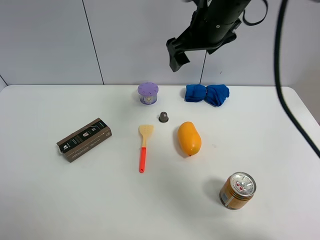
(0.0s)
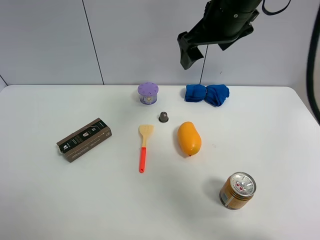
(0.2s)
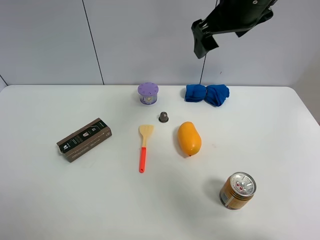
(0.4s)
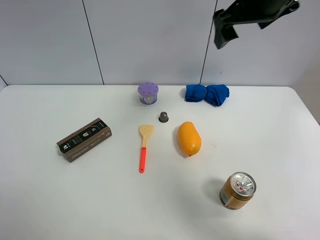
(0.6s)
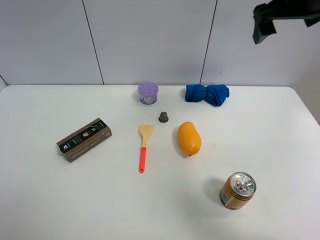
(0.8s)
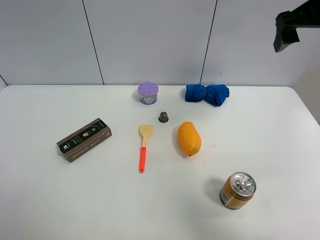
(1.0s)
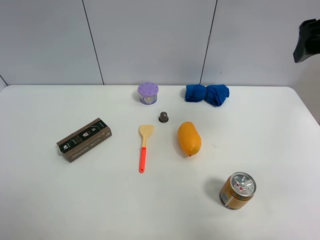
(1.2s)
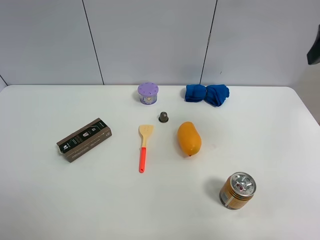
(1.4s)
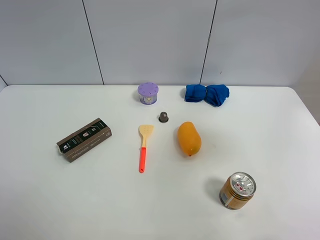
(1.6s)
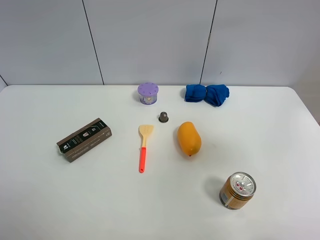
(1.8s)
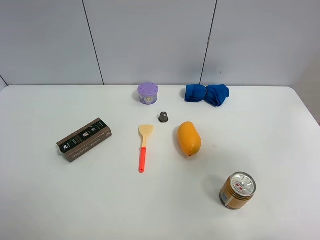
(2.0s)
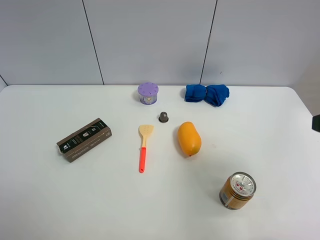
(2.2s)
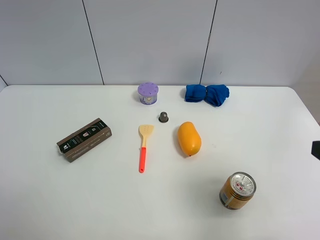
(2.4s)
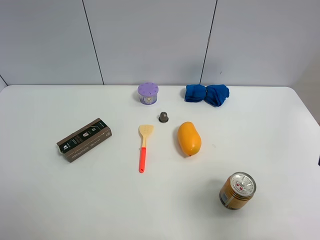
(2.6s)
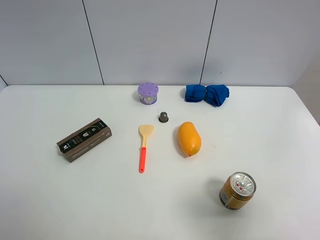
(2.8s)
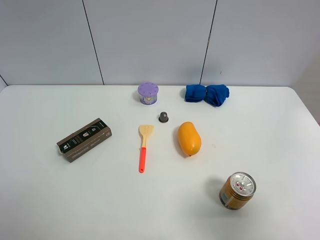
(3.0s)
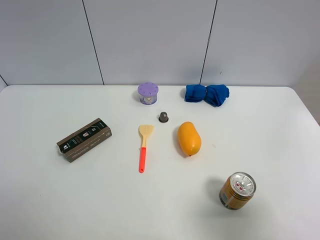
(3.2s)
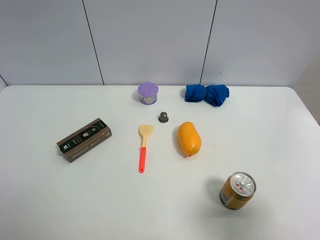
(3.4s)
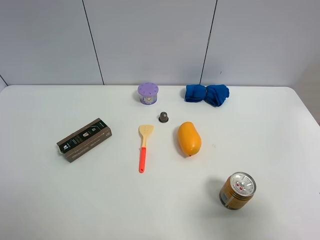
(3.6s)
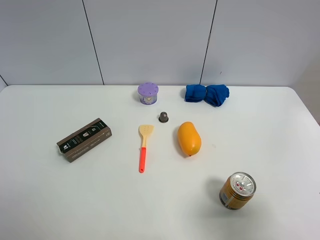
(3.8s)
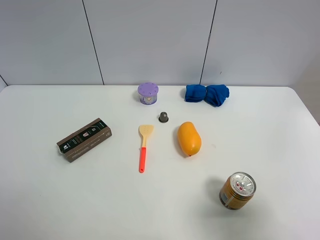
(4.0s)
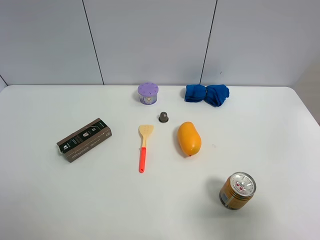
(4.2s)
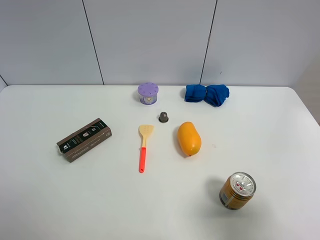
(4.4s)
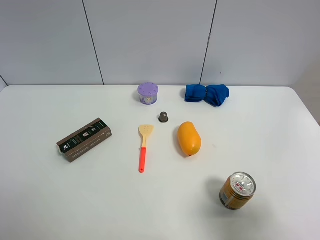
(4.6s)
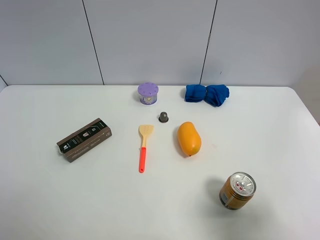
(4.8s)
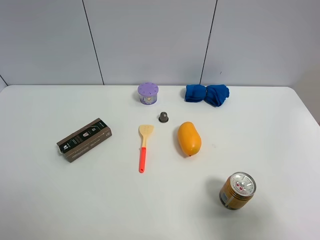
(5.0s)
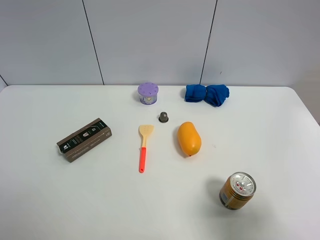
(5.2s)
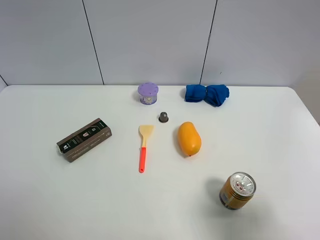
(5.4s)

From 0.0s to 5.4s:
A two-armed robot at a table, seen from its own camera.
Task of the whole recording: the gripper move the object.
From 0.0s to 1.4s: The right gripper shifts some 25 cm to the right and backward.
From 1.4s to 2.8s: The right gripper heads backward and downward, covering some 25 cm.

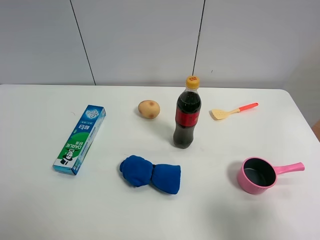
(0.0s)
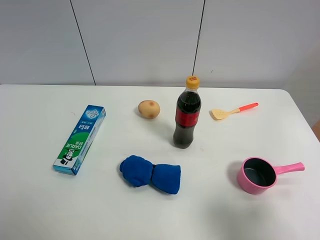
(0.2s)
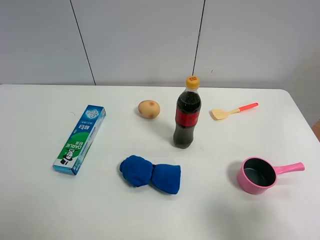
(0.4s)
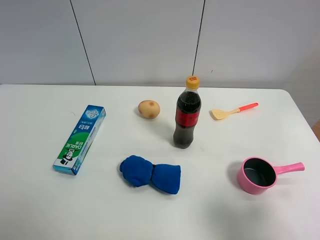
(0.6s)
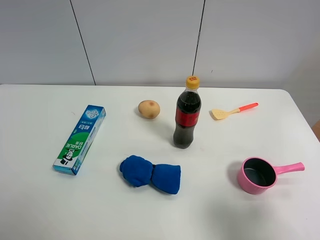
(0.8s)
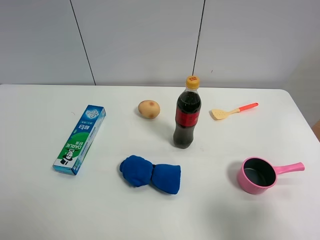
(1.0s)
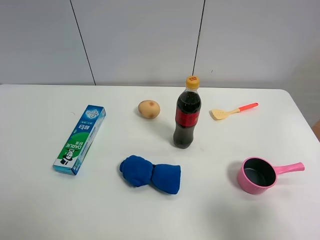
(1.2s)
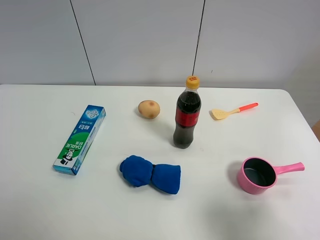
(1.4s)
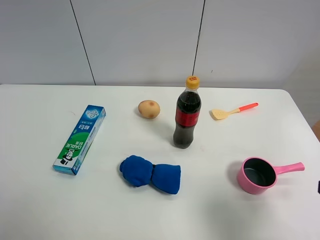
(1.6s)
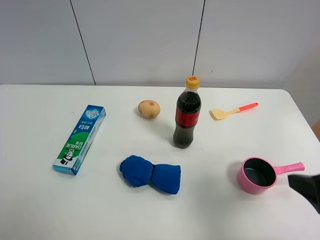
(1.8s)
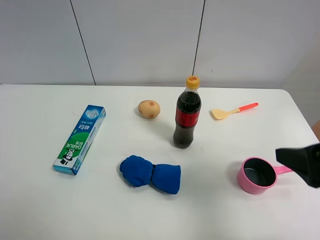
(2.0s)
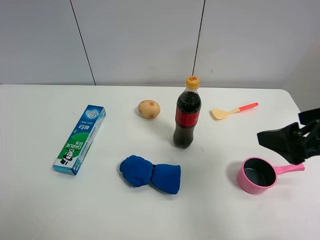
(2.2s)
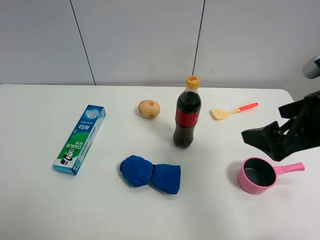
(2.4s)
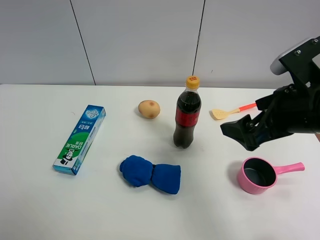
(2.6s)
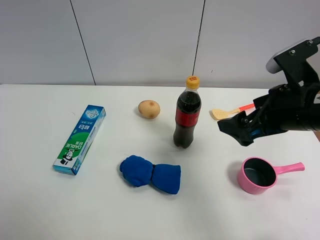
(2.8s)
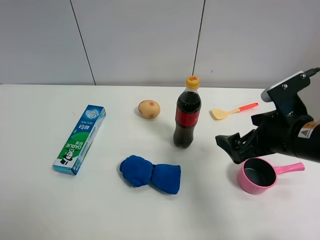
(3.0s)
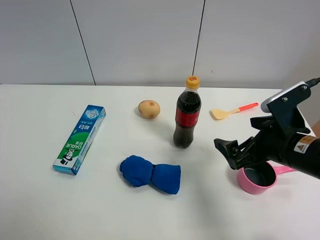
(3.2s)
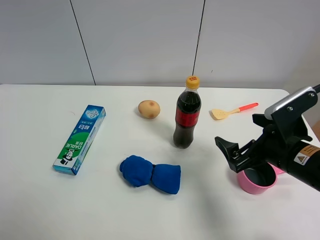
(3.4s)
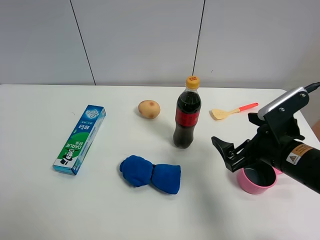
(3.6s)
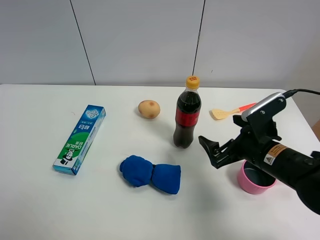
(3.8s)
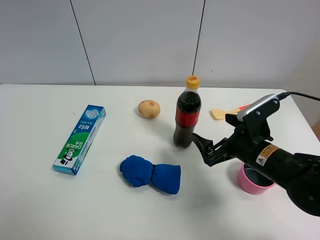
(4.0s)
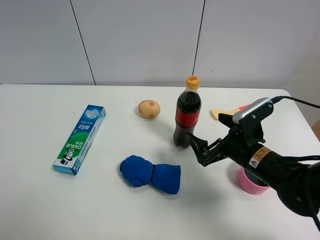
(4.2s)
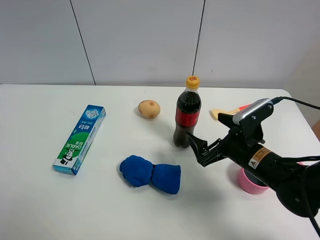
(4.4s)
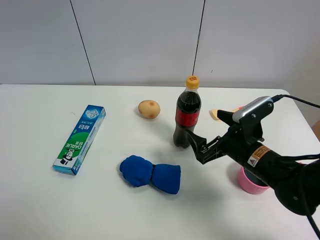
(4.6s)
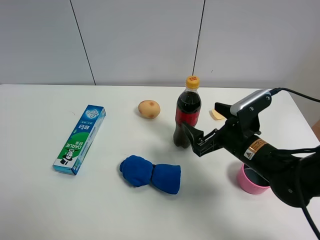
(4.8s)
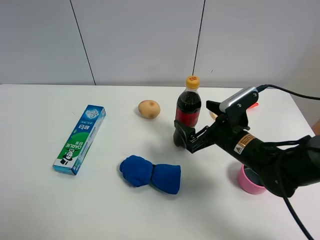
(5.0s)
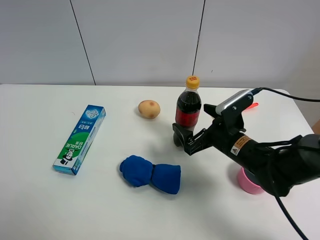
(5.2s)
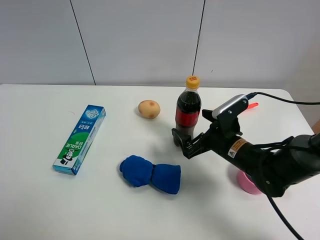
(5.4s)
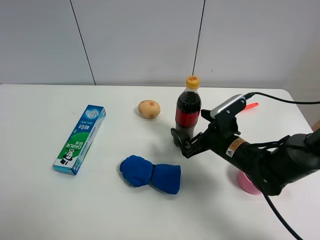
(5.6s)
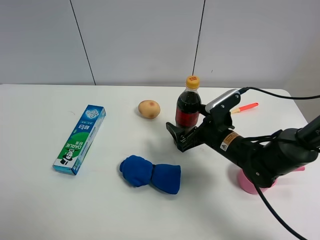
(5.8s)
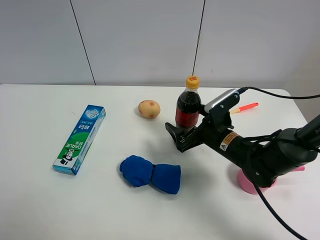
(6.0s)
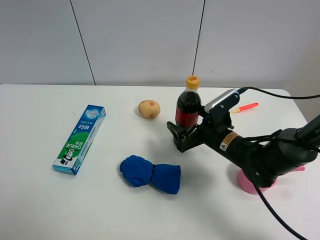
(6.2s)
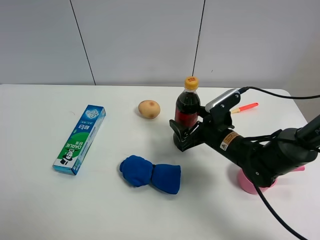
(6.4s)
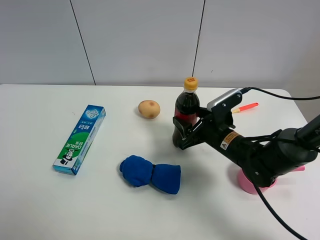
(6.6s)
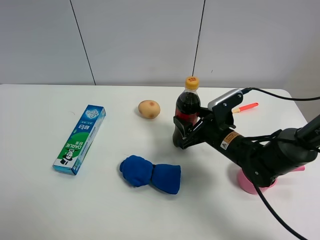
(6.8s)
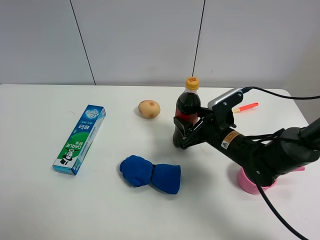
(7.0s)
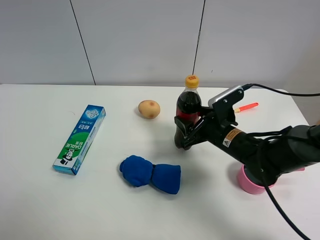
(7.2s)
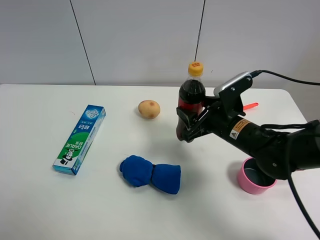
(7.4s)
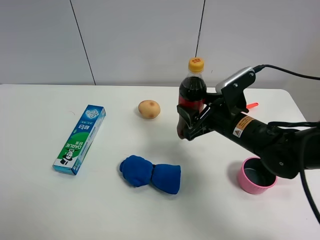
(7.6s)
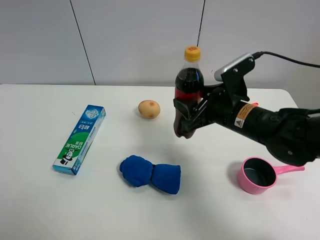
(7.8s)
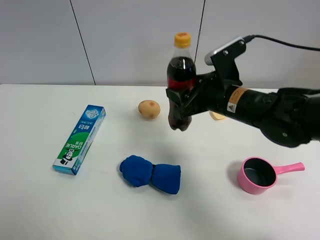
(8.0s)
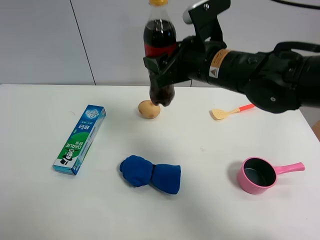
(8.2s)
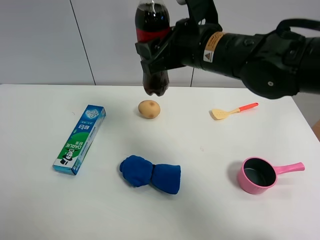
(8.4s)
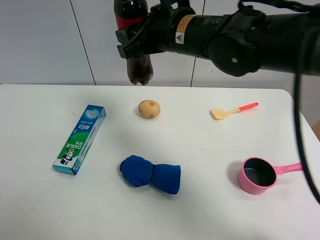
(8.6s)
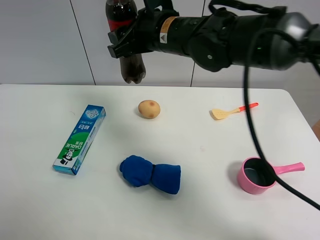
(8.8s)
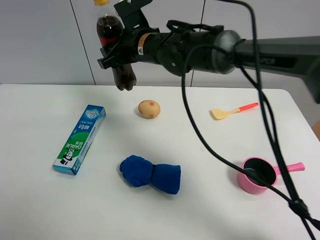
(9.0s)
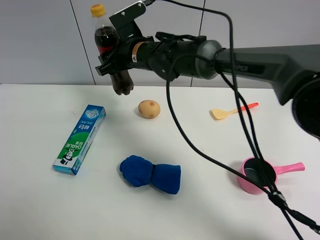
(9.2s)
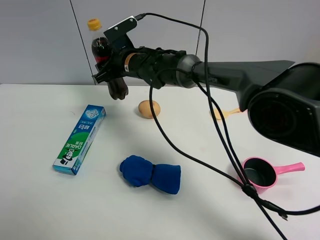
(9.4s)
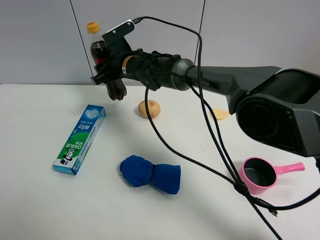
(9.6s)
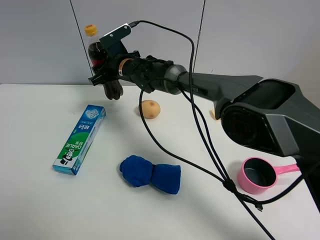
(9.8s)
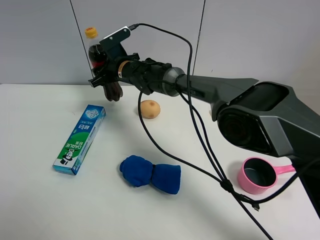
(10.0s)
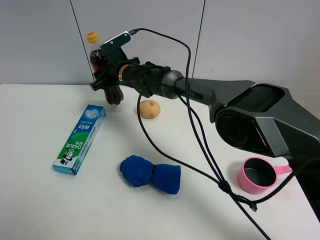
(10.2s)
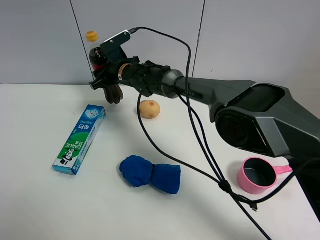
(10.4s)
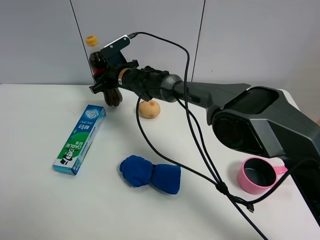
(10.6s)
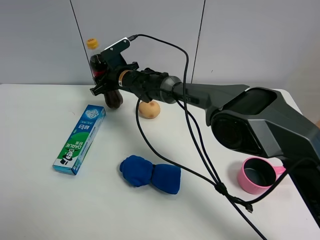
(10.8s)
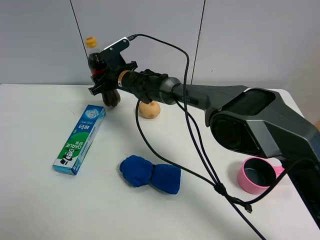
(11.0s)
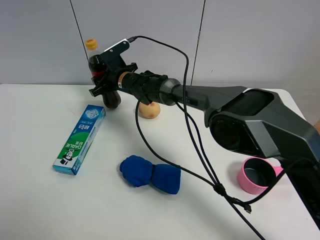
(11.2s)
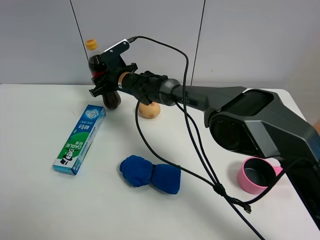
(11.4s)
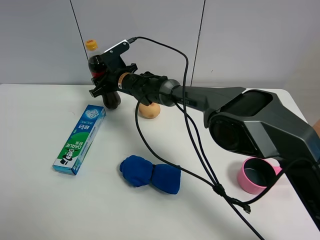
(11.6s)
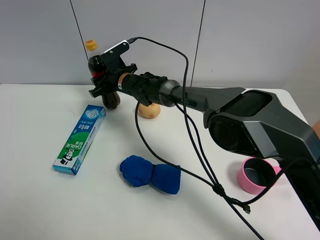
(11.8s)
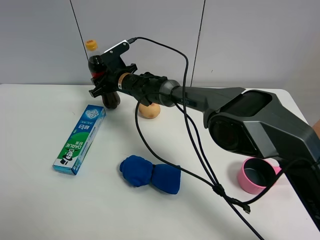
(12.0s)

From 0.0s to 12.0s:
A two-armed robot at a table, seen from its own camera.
Task of the whole recording: the gripper move the object.
Step, from 0.0s to 6.6s: Grasp the coke with the right gripper.
From 1.6s to 3.0s: The right gripper goes some 15 cm forward and to the left.
From 3.0s to 4.4s: The right gripper moves downward, about 10 cm.
From 4.4s to 6.0s: The right gripper travels forward by approximately 5 cm.
From 6.0s to 7.6s: The right gripper heads upward, covering about 5 cm, and closes its fingers.
From 7.6s to 9.0s: The right gripper heads to the left, forward and upward, covering roughly 25 cm.
From 9.0s to 10.4s: The right gripper shifts some 15 cm downward, forward and to the left.
From 10.4s to 12.0s: The grippers move only a little.

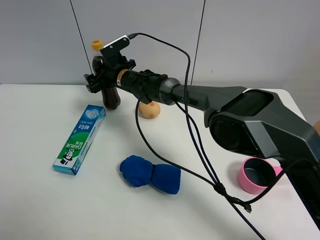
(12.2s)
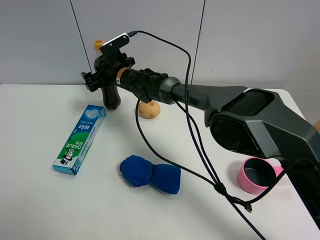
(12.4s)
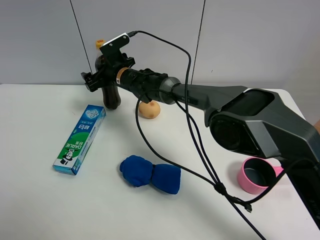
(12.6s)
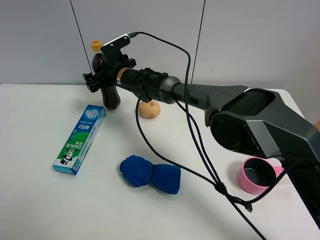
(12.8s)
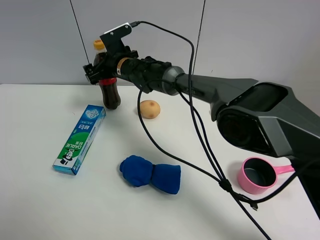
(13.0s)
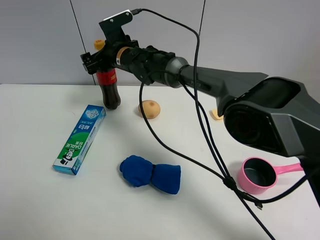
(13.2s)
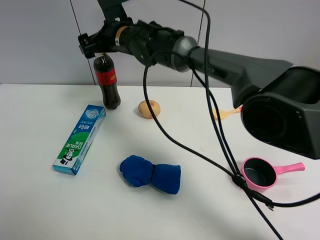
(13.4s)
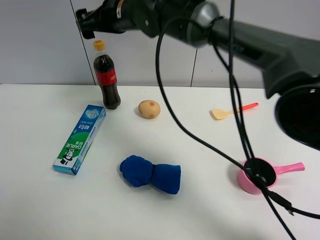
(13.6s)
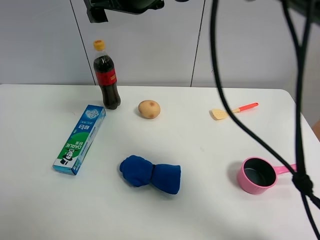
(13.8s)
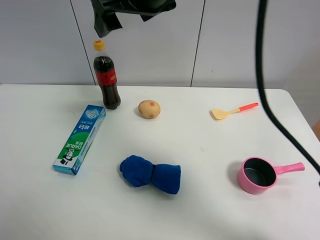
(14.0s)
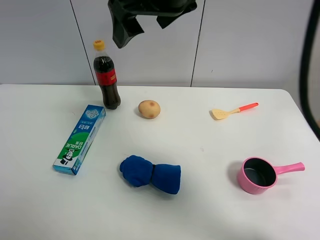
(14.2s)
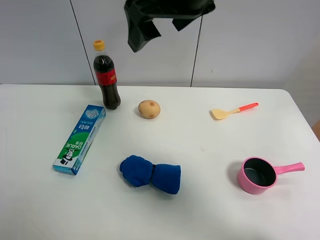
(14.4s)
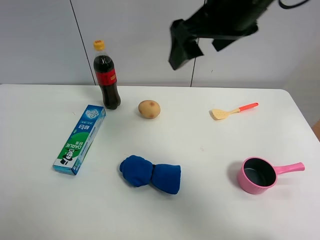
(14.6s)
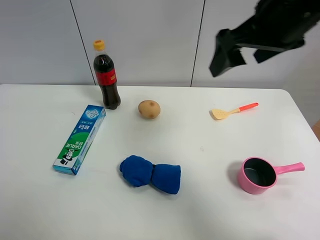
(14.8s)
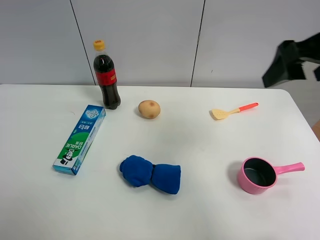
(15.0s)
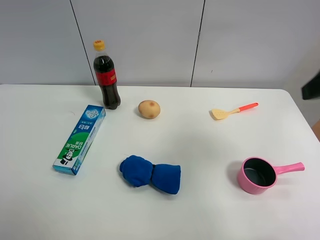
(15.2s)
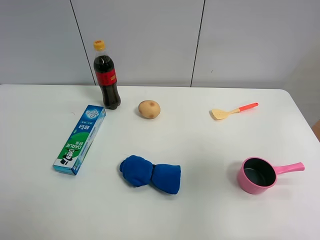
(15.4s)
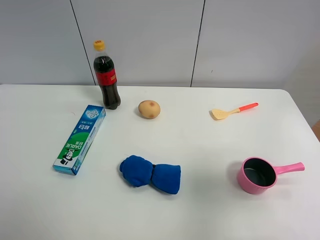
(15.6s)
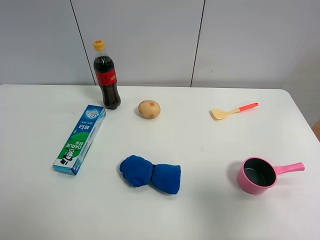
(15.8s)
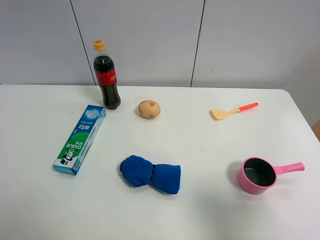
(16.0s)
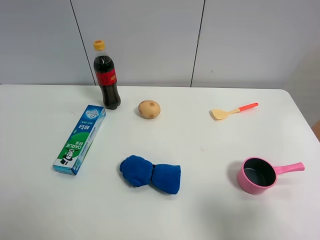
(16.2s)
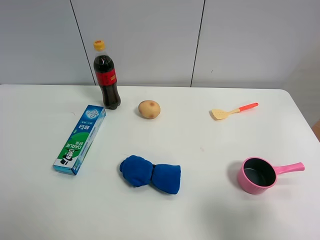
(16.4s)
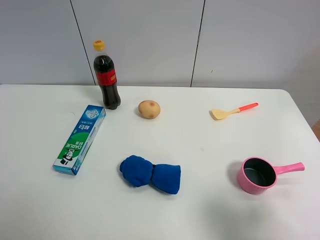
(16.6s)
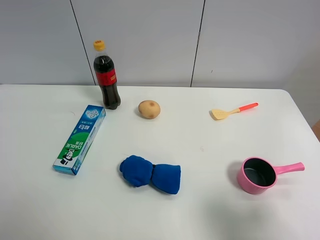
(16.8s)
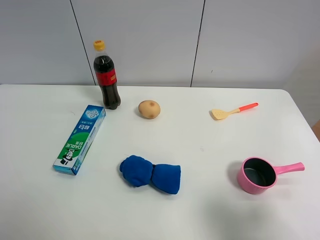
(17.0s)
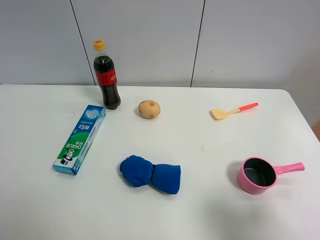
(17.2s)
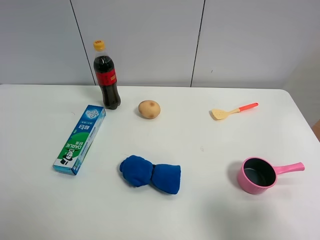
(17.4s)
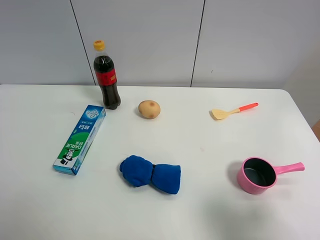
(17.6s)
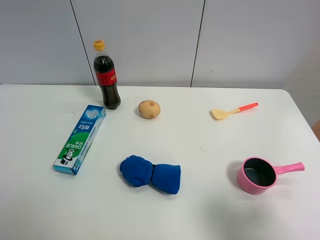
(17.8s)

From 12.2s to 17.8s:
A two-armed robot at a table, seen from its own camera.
Task of the whole recording: the gripper move the object.
From 12.2s to 13.6s: The right gripper travels upward by about 20 cm.
From 13.6s to 15.0s: The right gripper goes approximately 35 cm to the right and backward.
From 15.0s to 16.4s: The right gripper goes roughly 25 cm backward and downward.
From 16.4s to 17.8s: Both grippers stay about where they are.
